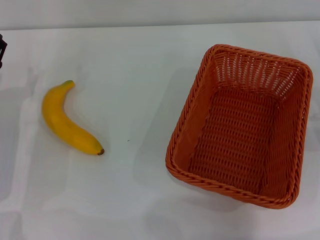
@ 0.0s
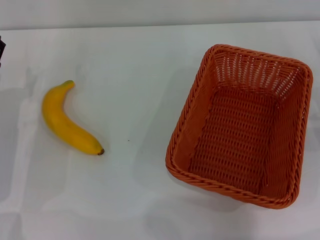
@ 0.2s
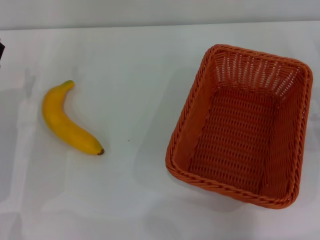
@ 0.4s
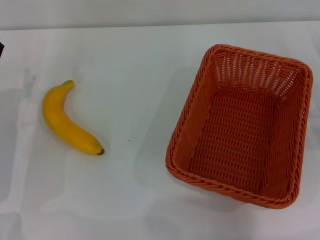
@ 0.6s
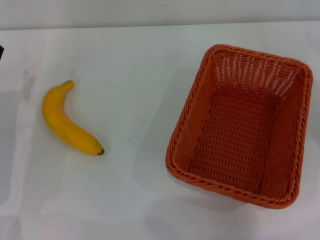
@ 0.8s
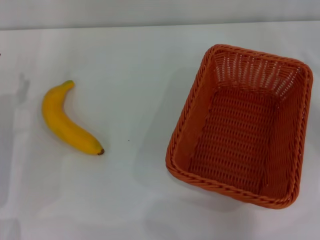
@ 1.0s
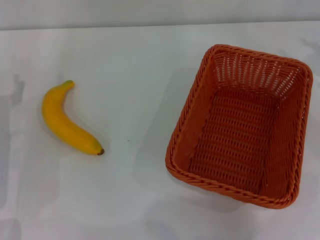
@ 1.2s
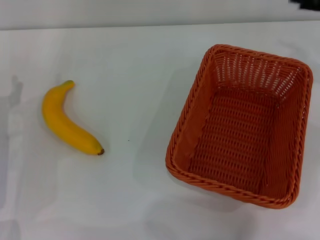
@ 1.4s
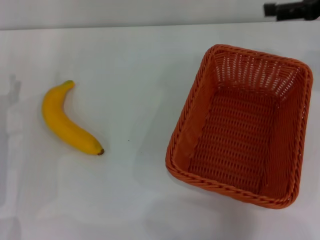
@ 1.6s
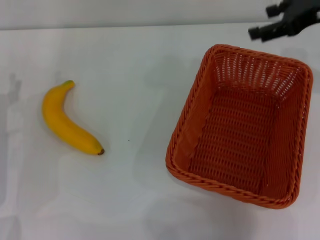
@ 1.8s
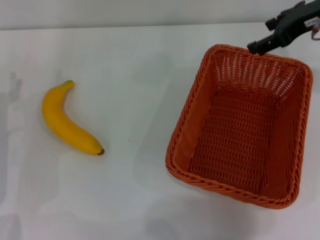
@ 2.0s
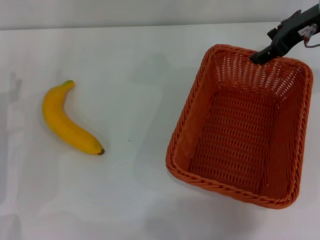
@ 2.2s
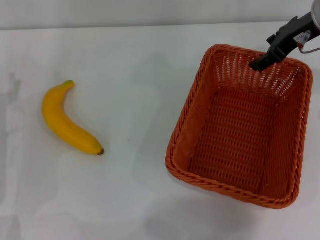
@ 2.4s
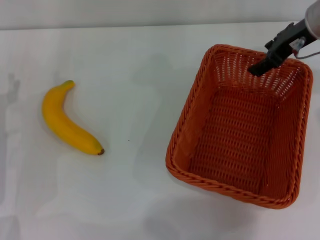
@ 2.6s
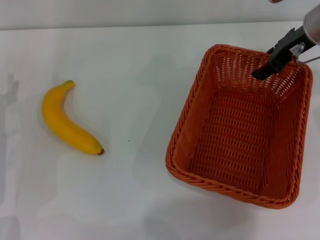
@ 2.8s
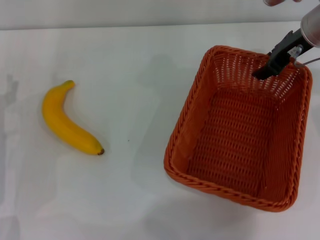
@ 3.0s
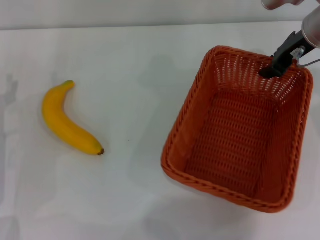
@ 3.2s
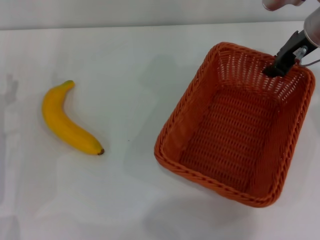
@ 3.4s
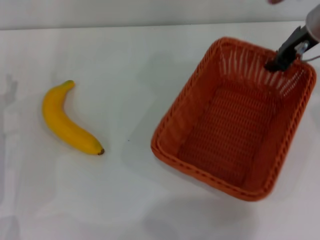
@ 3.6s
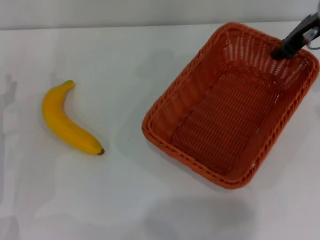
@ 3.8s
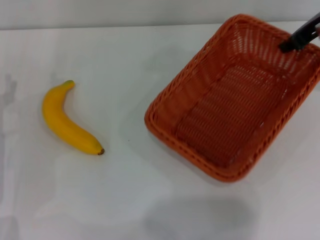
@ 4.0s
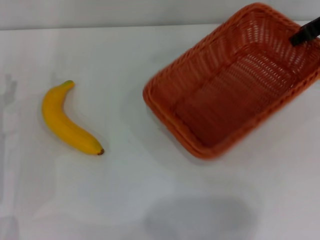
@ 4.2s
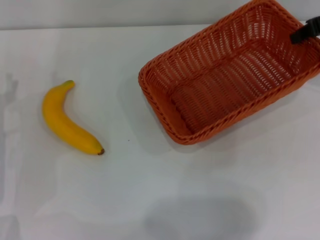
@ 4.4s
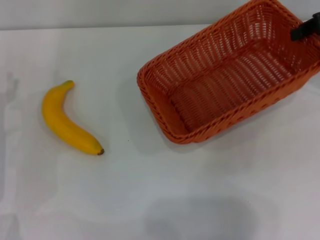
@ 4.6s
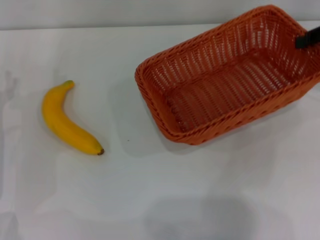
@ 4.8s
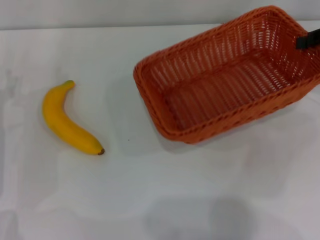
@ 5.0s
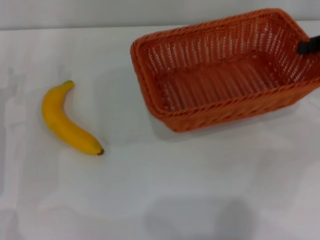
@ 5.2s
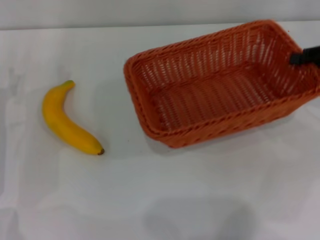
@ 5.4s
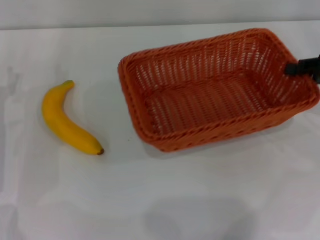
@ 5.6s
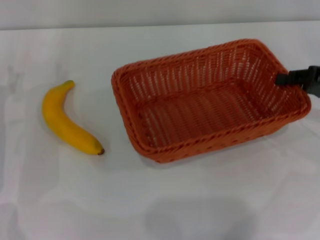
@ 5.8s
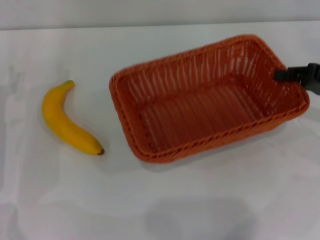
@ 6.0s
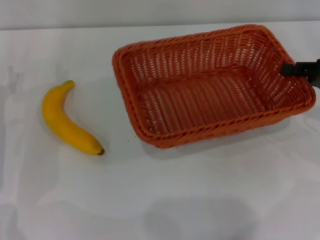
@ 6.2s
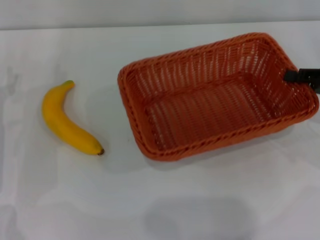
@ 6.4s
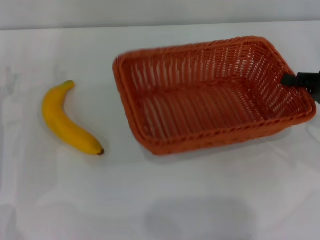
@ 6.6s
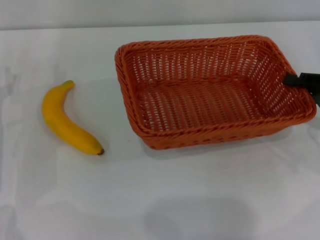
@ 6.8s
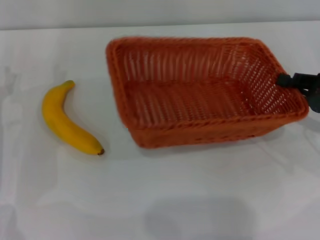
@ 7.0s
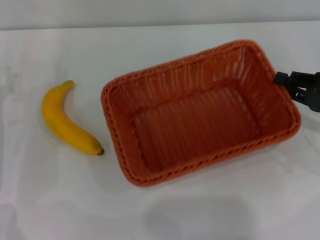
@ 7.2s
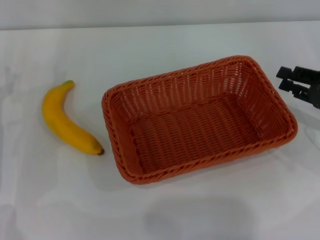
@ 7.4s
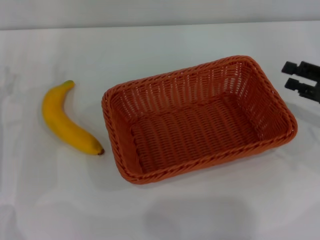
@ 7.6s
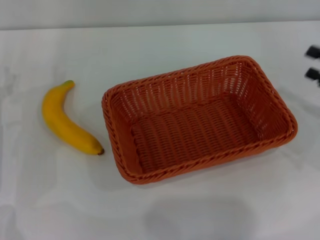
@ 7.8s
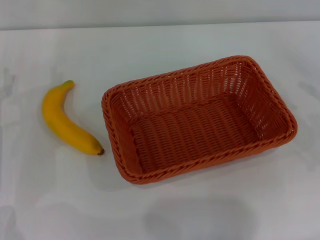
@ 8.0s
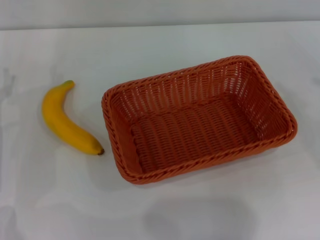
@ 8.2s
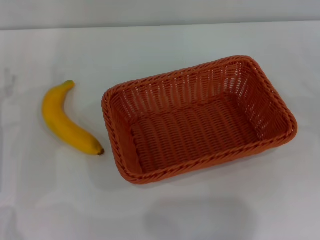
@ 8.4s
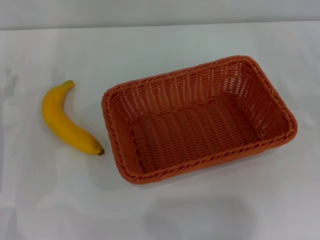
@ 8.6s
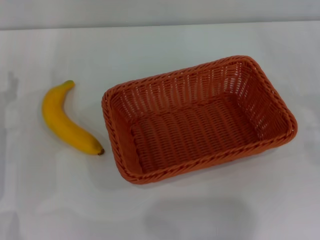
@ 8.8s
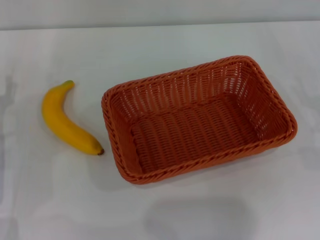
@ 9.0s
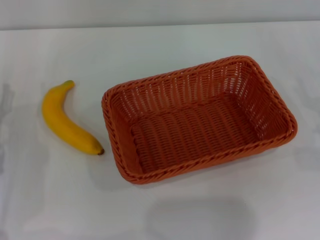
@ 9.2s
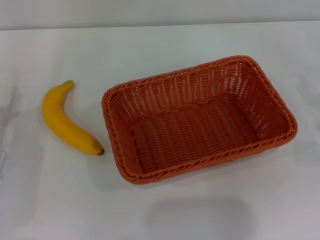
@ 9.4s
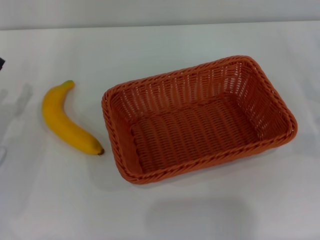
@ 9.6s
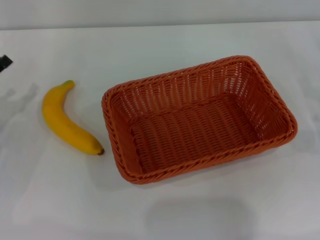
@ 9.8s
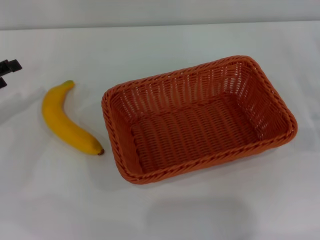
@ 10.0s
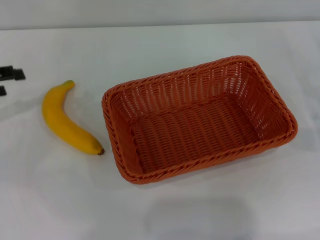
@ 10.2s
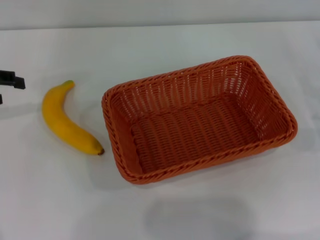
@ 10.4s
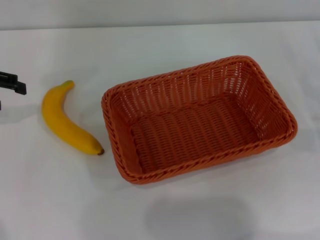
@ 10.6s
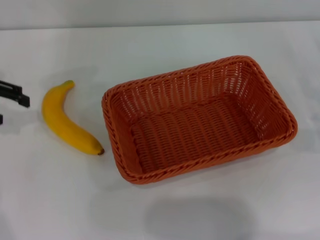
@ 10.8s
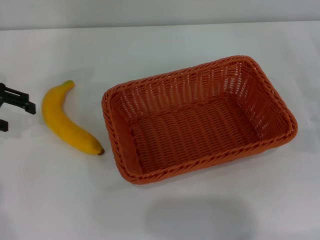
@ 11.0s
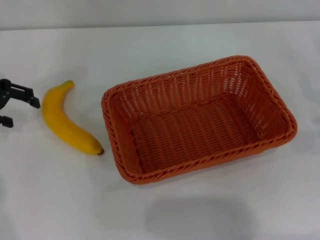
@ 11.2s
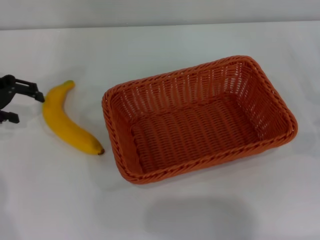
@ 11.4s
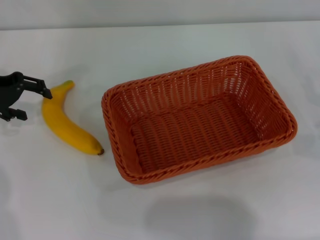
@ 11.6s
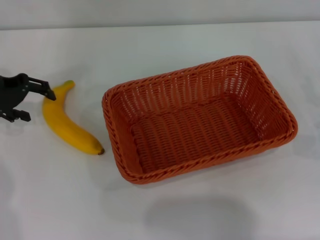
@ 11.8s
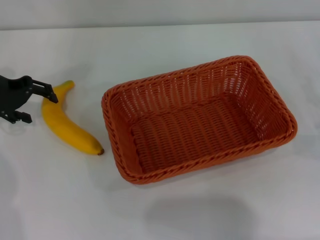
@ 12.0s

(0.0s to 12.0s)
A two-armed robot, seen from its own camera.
Step, 0.0s - 5.0s: Pick up the light basket with the right gripper.
Step, 5.2s - 7.6s: Place the light basket in the center of view with the right gripper.
0.0s - 1.6s: The right gripper goes approximately 25 cm upward, forward and to the left.
1.6s - 3.0s: The right gripper travels to the left by some 10 cm.
3.0s - 4.4s: The right gripper shifts some 10 cm to the right, and closes.
4.4s - 6.0s: The right gripper travels downward and backward by some 15 cm.
6.0s - 7.6s: The right gripper opens up.
7.6s - 9.0s: The right gripper goes approximately 5 cm to the right, and opens.
9.0s - 10.4s: The left gripper travels upward and to the left by roughly 15 cm.
10.4s - 12.0s: The left gripper is displaced to the right by approximately 5 cm.

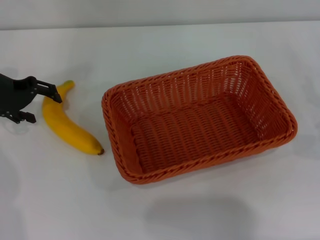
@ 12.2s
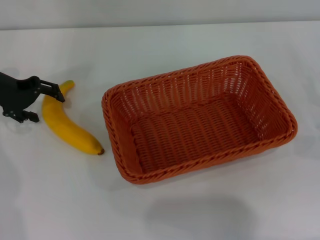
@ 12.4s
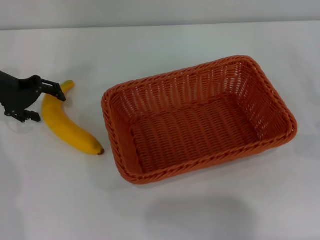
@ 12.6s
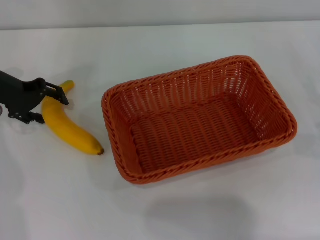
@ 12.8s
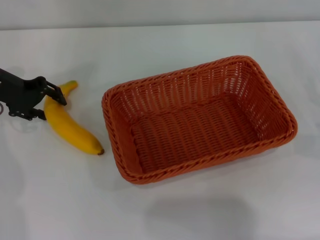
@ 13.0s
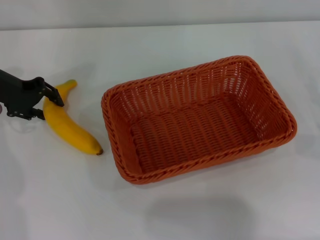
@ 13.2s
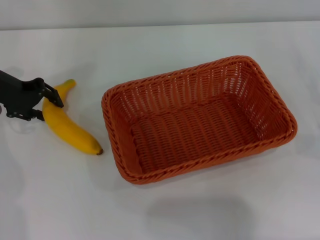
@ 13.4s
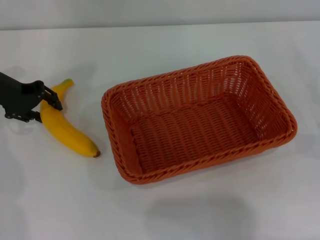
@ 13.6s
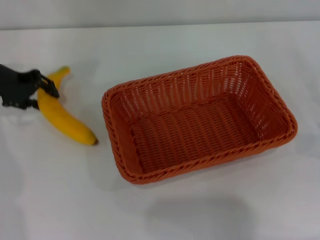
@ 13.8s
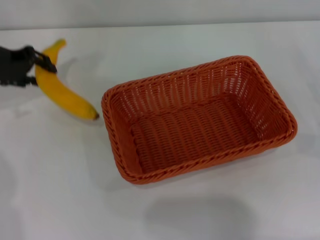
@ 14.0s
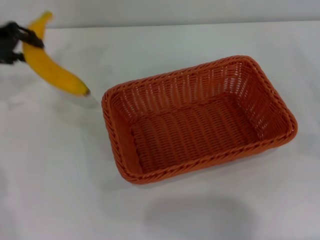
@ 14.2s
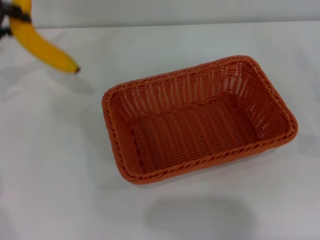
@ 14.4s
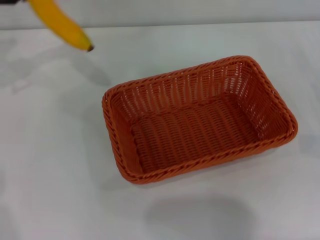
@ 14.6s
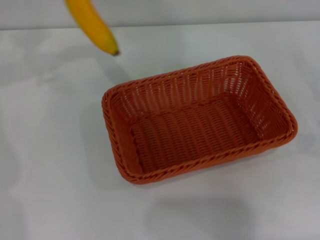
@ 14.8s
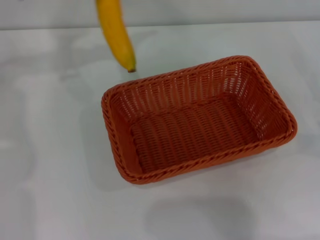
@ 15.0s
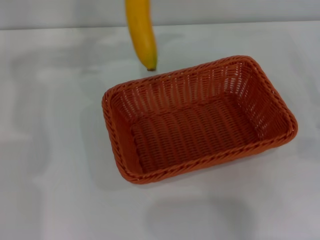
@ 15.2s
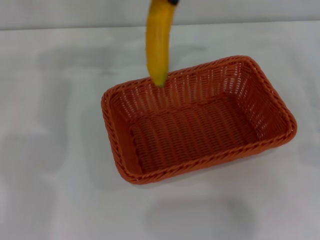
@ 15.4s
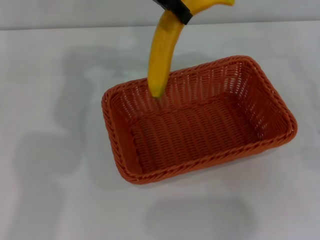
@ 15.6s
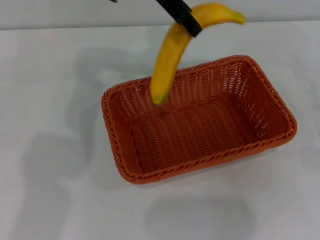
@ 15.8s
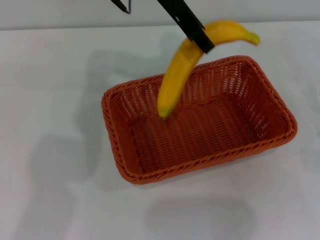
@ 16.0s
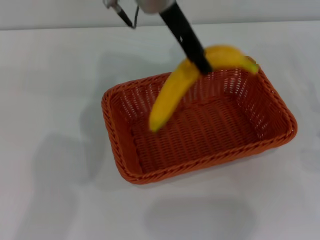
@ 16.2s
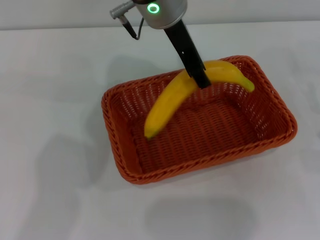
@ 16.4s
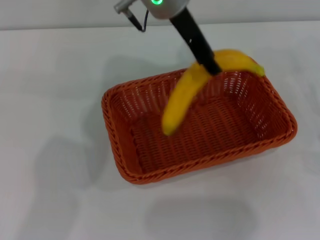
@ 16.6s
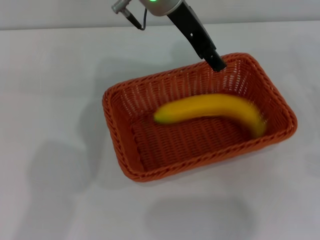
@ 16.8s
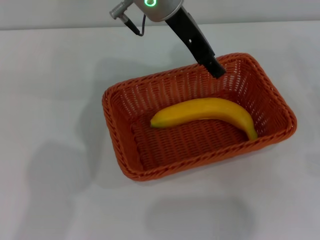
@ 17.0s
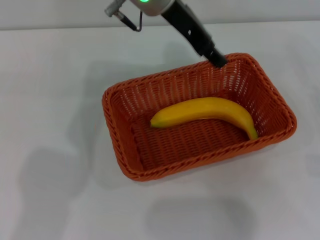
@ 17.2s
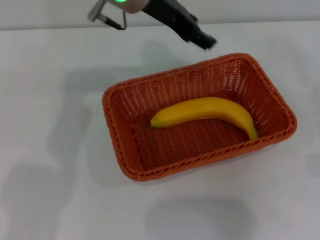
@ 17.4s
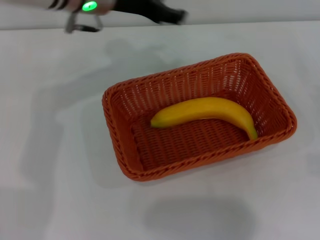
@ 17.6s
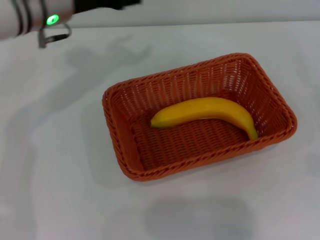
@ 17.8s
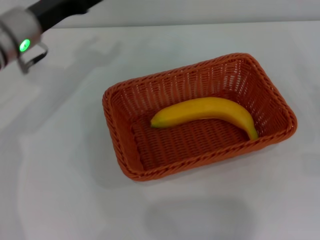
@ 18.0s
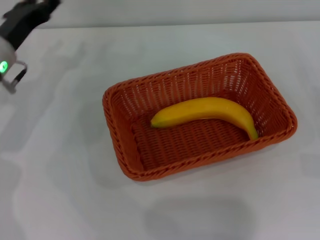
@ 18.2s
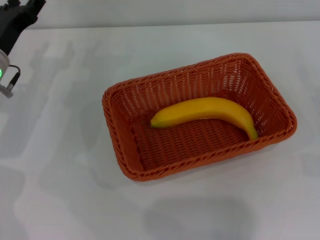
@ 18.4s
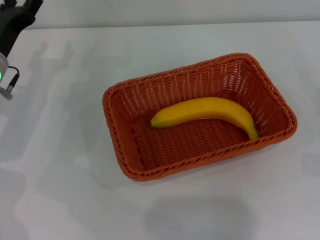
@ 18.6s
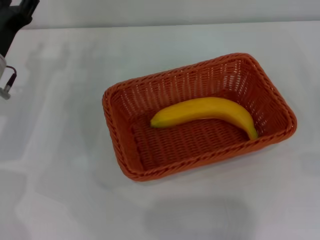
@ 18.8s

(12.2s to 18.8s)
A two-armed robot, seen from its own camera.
Step, 14.4s - 17.2s: Place the banana into the light basket with the left gripper.
12.2s - 13.8s: The left gripper closes.
13.8s - 15.4s: The left gripper goes about 25 cm to the right and upward.
15.4s - 17.2s: The left gripper travels to the right by roughly 10 cm, and opens up.
17.2s - 18.8s: The left gripper heads to the left and downward, covering roughly 30 cm.

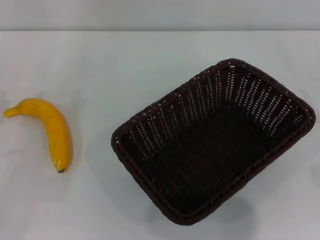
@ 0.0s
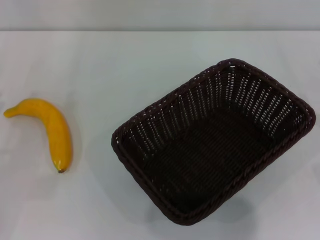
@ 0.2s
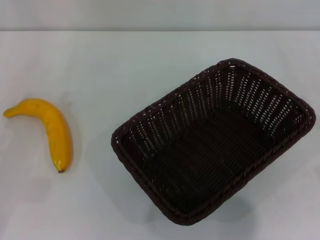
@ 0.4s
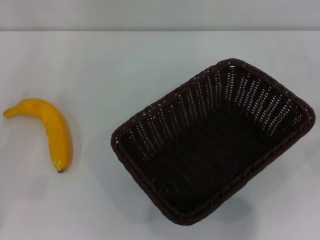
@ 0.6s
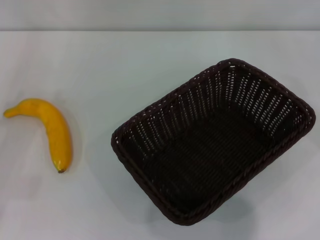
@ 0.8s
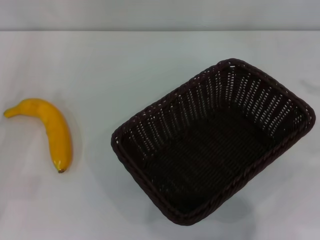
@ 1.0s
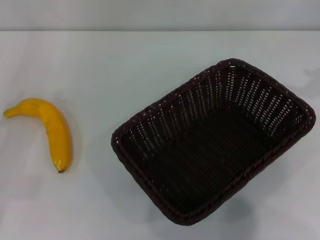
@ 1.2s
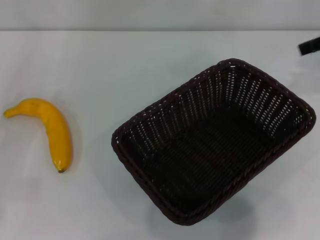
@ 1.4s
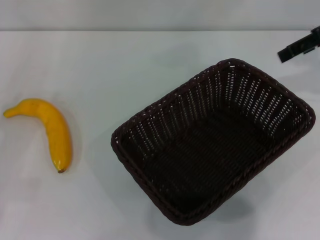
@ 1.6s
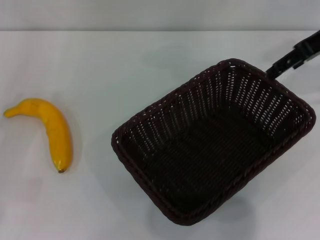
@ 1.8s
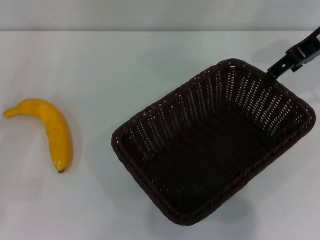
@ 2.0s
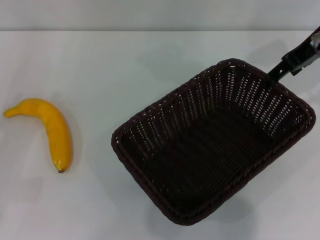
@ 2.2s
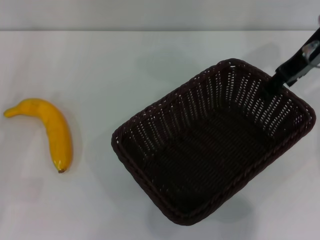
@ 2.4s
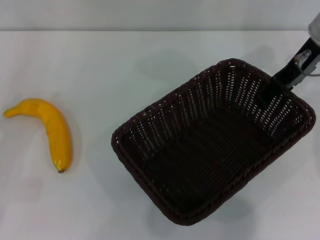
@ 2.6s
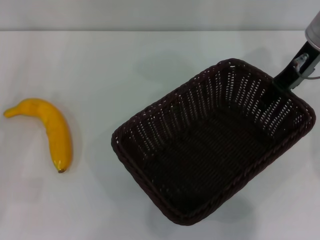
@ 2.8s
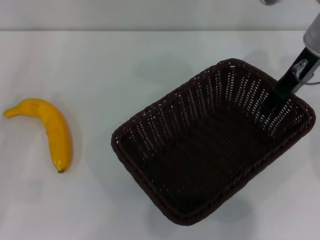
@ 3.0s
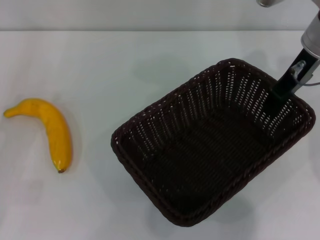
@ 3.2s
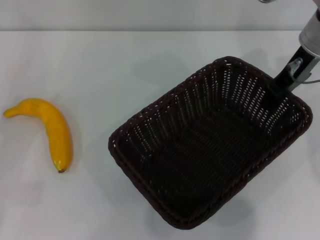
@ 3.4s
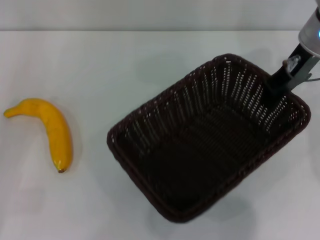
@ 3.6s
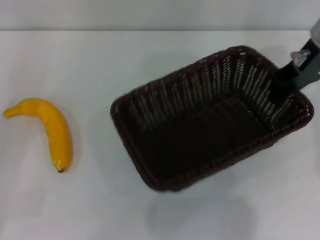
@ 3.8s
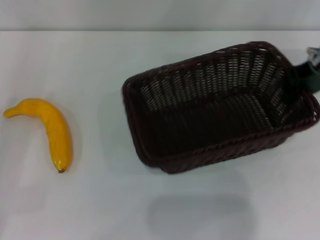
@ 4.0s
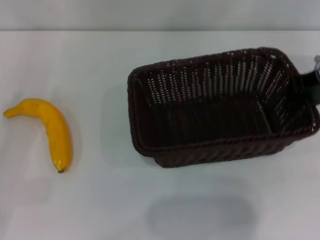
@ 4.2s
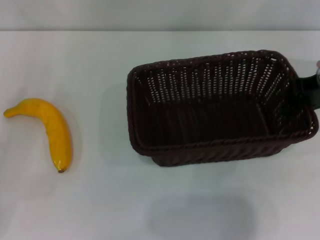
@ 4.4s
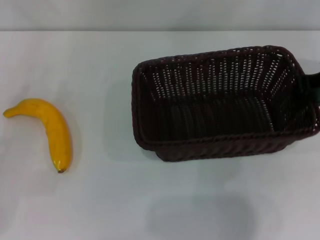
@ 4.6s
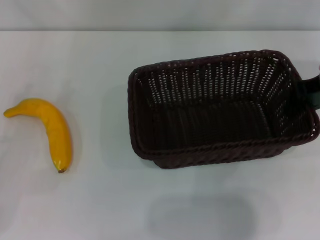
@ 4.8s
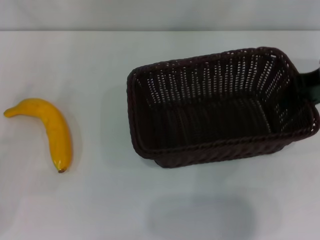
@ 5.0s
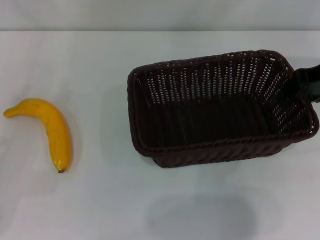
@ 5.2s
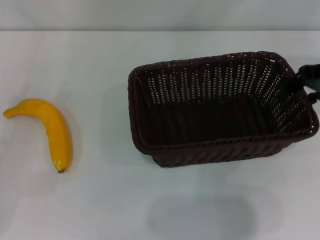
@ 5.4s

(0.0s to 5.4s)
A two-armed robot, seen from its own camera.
Step, 0.0s - 3.8s: Pick up the dark basket with the right gripper.
1.4s - 2.8s: The right gripper moves to the left and downward, about 10 cm.
2.8s - 4.0s: The right gripper closes.
4.0s - 5.4s: The right gripper opens its fingers.
